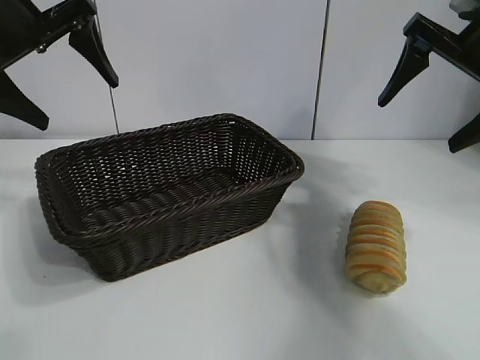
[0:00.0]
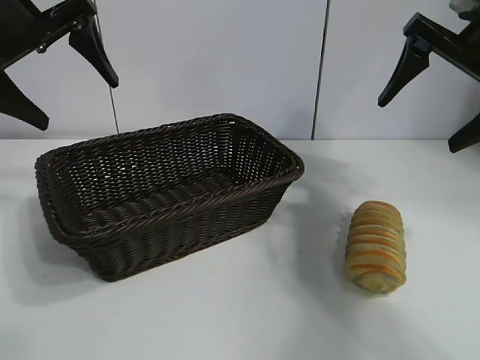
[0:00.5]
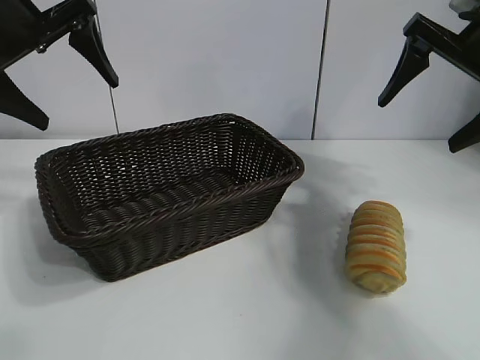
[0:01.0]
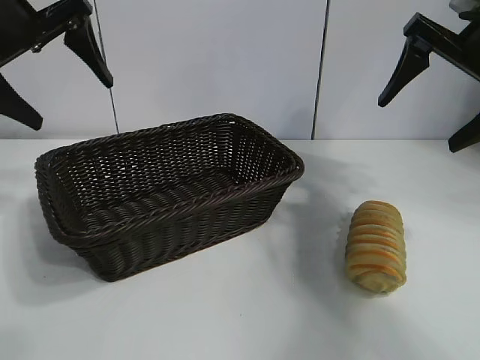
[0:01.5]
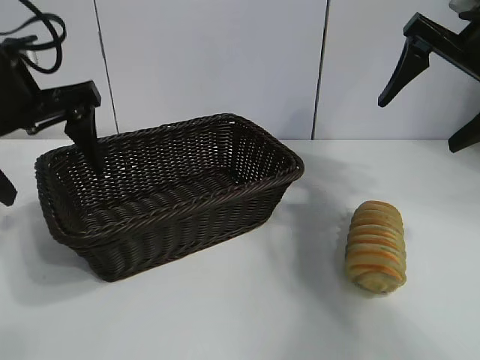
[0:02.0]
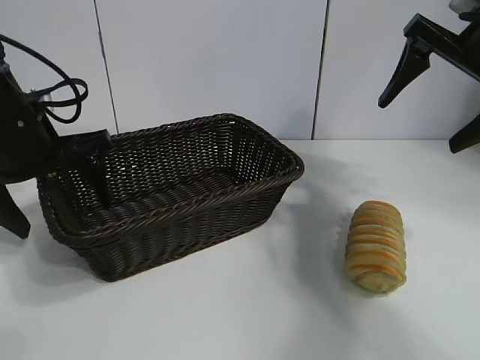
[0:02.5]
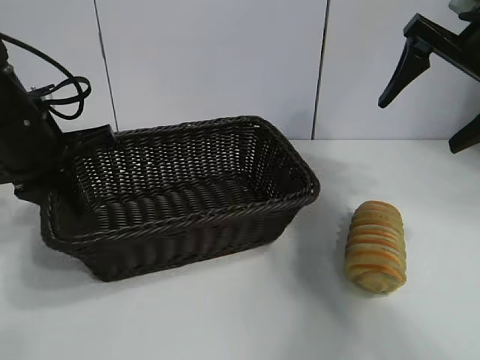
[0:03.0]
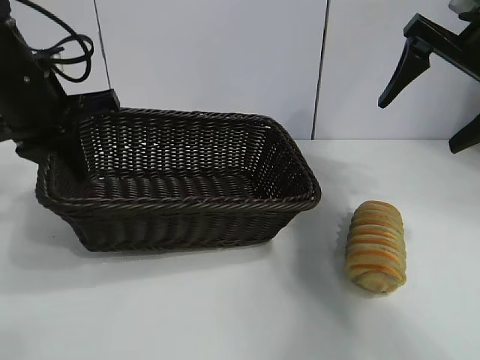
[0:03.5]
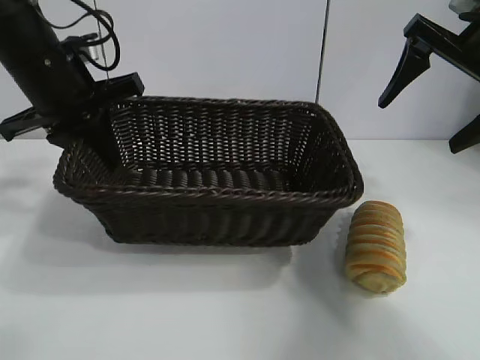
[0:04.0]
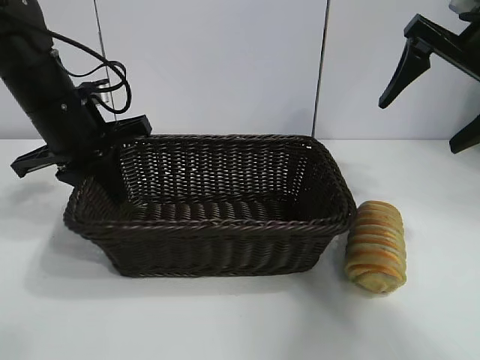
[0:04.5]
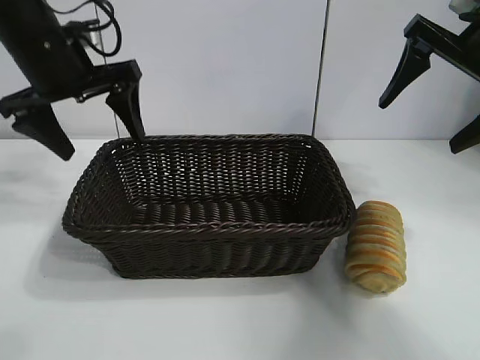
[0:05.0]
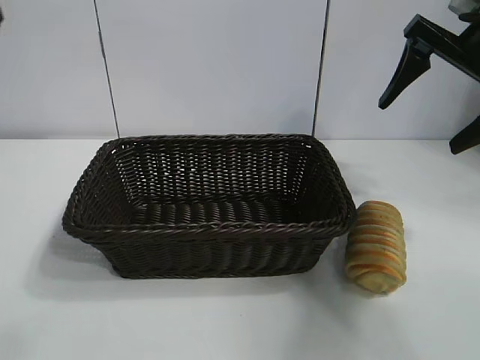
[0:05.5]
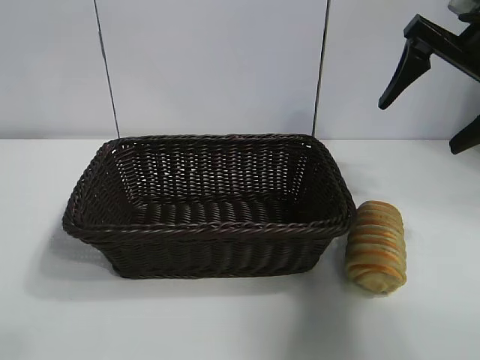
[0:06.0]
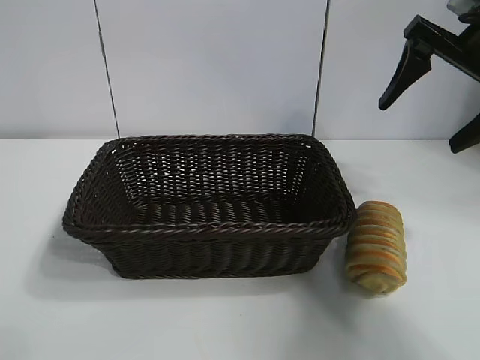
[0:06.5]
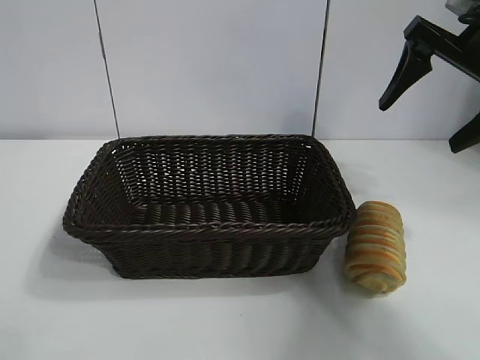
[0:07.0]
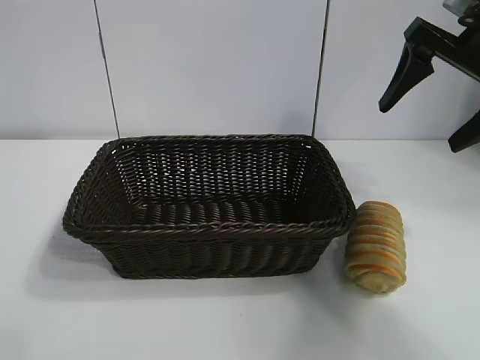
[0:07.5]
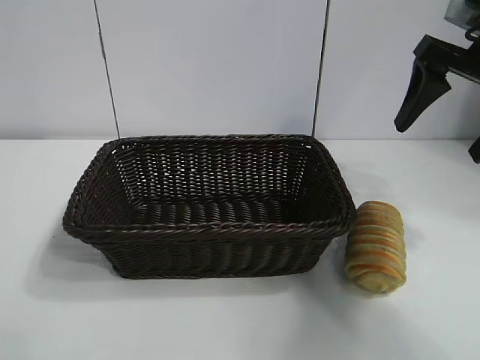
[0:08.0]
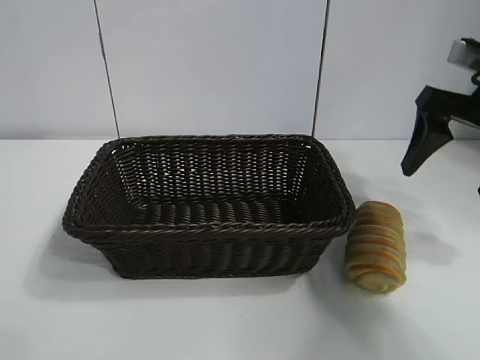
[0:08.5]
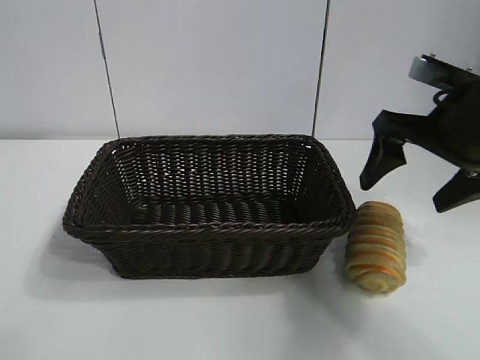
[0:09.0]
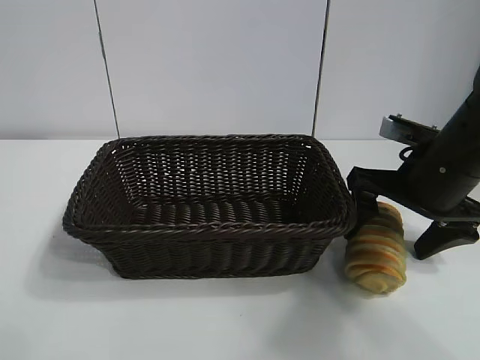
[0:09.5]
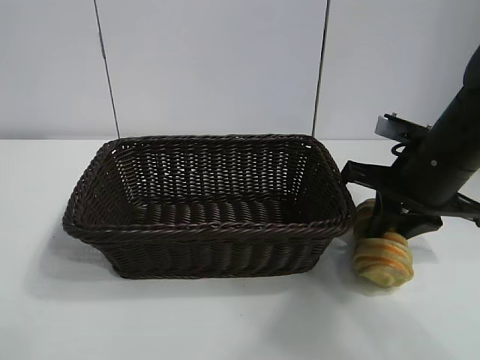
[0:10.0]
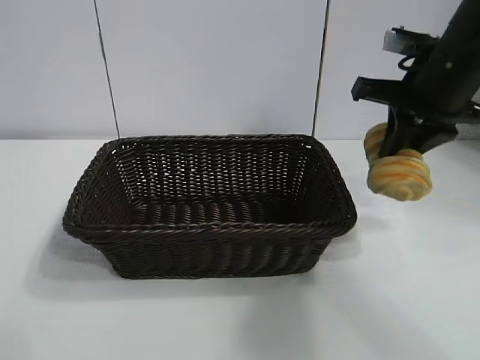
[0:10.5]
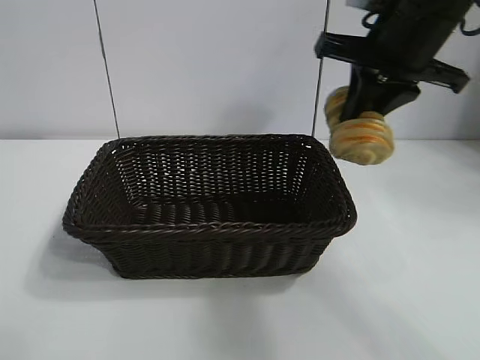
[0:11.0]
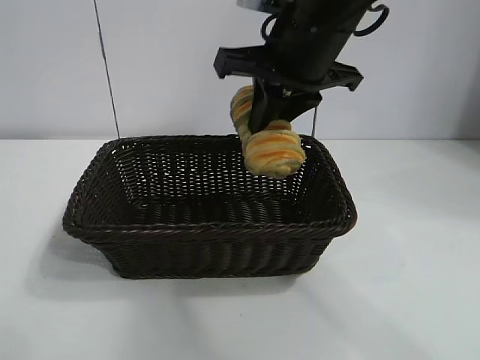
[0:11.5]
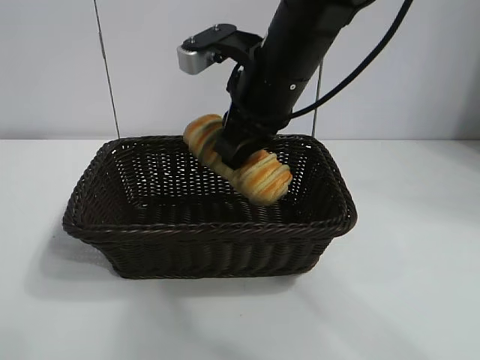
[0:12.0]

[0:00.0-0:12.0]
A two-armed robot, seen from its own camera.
Task of the whole recording: pick up the long bread and put it into the basket.
Step, 0:01.5 to 0:03.0: Grasp the basket with the left gripper.
Step, 0:03.5 to 0:04.5: Place the basket in the center of the table with the left gripper.
Step, 0:05.0 to 0:09.5: Grasp the long bread with right gripper.
